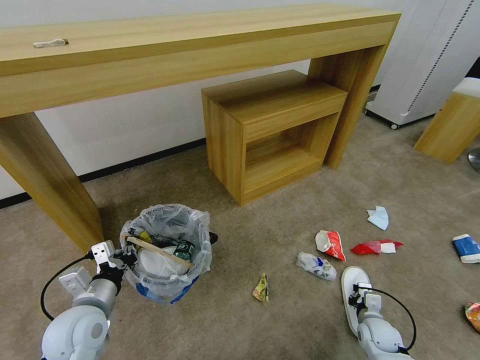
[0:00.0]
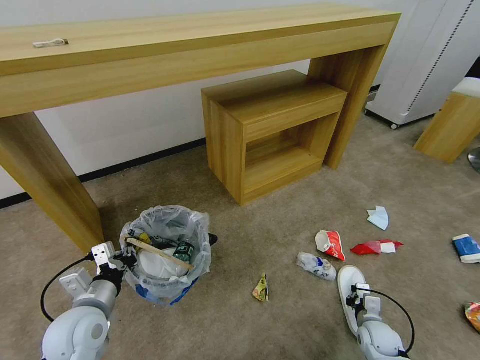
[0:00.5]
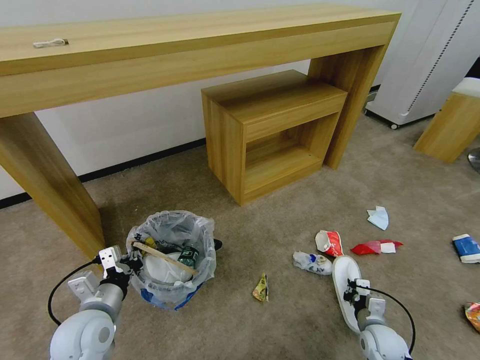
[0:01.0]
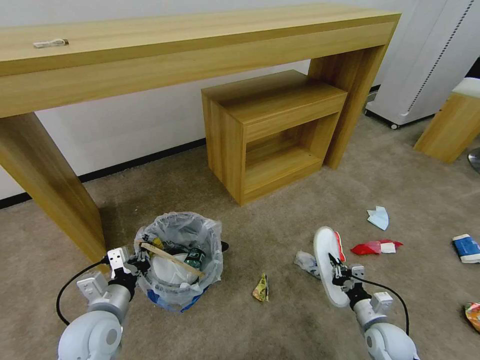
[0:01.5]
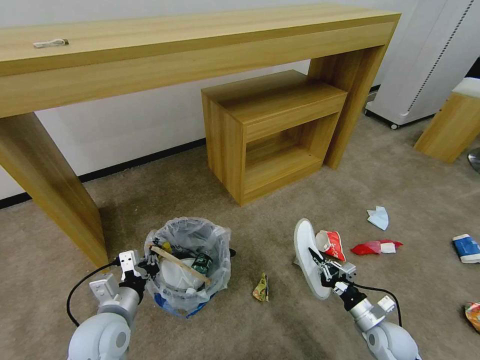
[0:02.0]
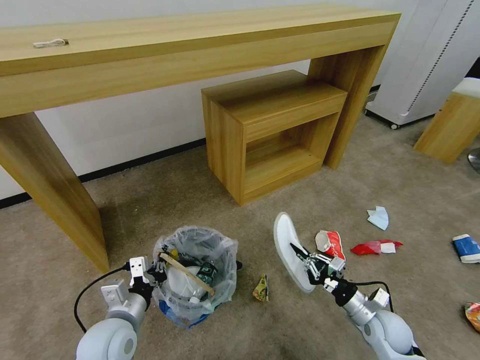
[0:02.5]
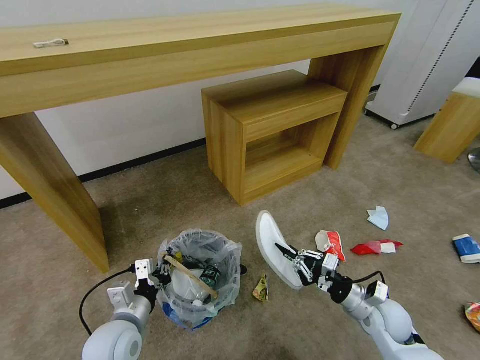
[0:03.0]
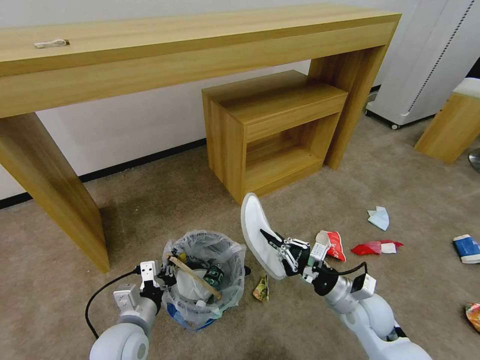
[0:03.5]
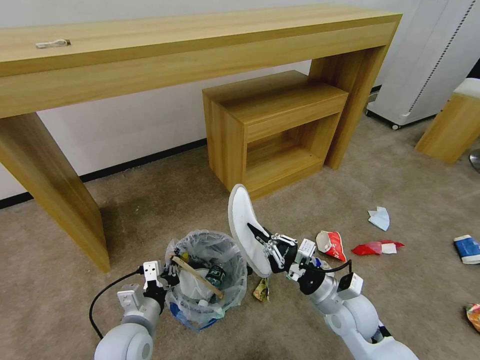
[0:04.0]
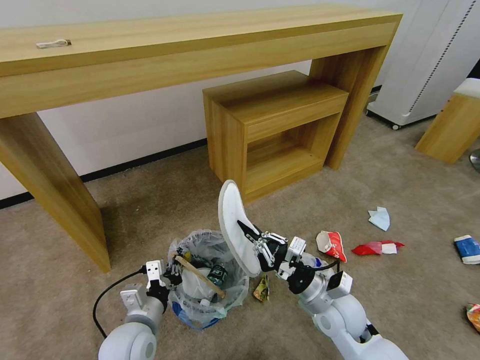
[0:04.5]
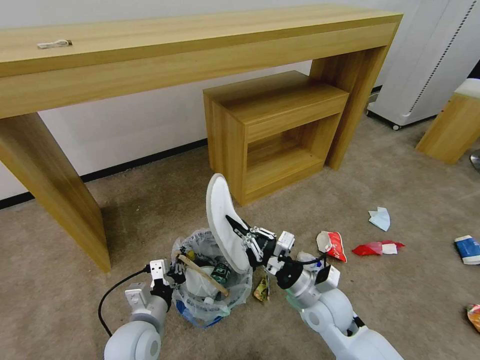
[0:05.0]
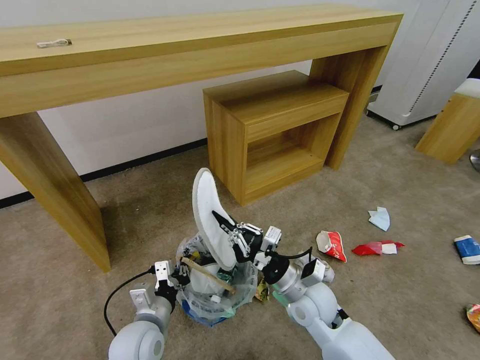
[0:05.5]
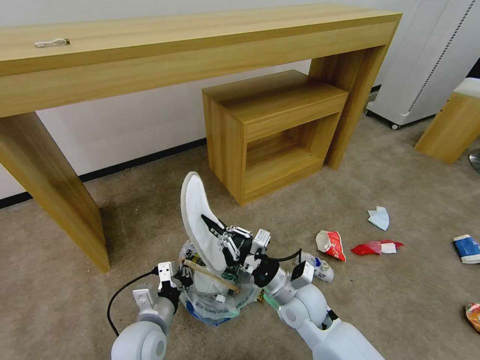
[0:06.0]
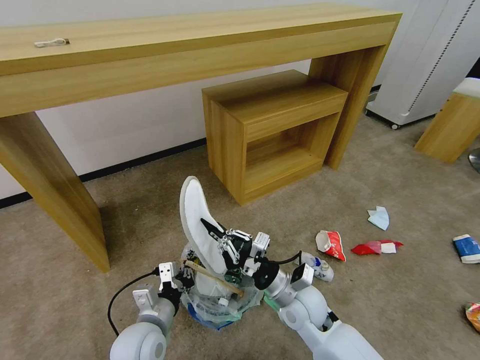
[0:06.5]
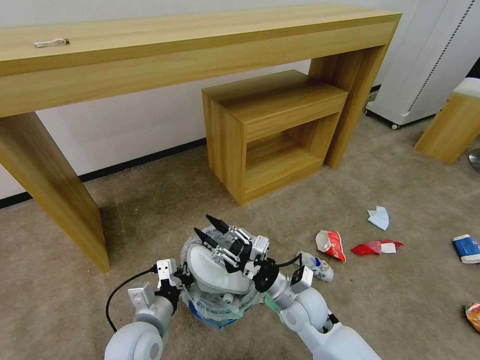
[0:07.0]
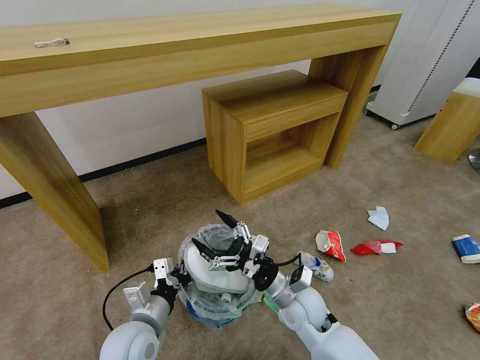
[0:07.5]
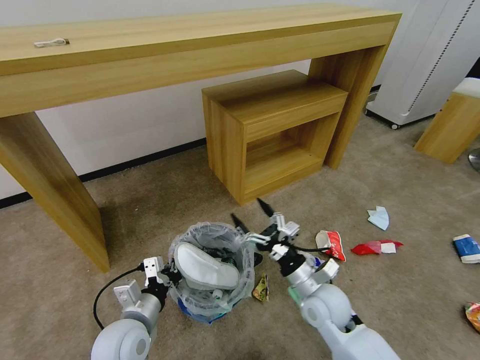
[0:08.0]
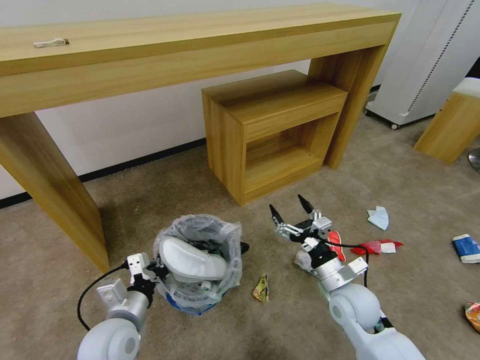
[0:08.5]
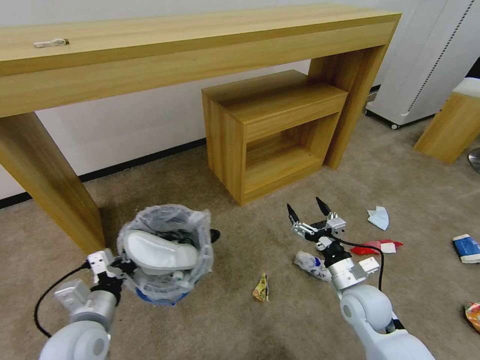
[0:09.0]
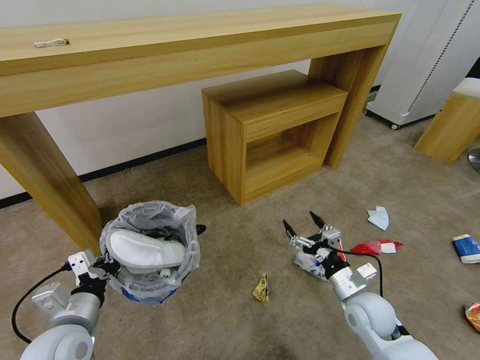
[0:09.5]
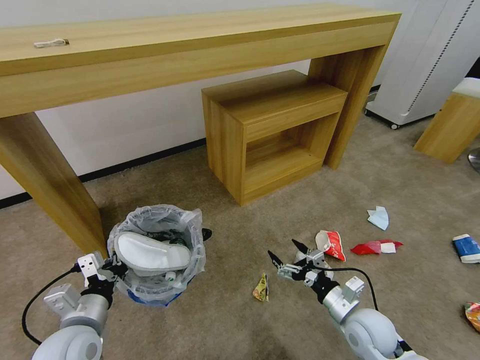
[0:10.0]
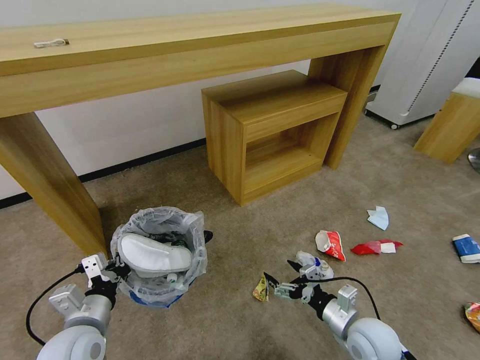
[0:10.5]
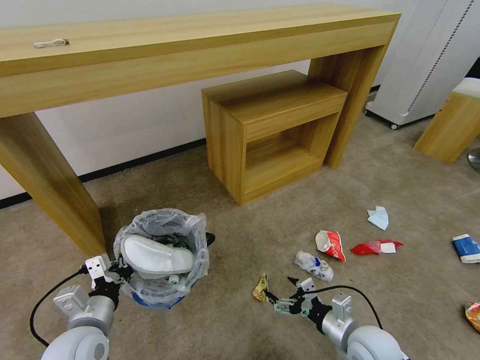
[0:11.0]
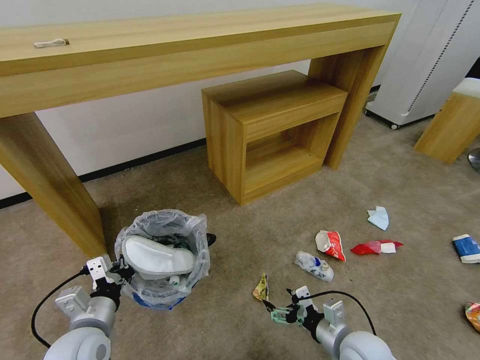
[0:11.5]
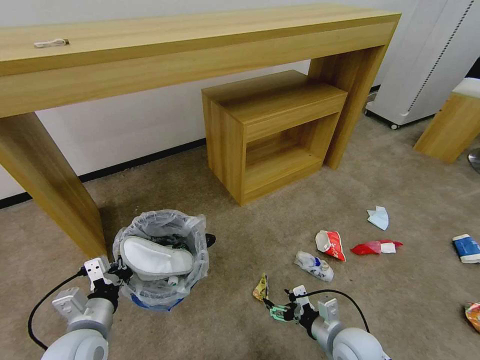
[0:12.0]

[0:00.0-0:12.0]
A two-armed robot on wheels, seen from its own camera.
Task of the whole recording: Pick up the trash bin and place the garbage on the floor into it.
0:00.0 to 0:02.0: The right gripper is displaced upward by some 5 cm.
0:02.0 to 0:04.0: The right gripper shifts about 20 cm to the left and upward. The left gripper changes place by some 5 cm.
0:04.0 to 0:06.0: The right gripper heads to the left, covering about 10 cm.
0:06.0 to 0:08.0: The right gripper is displaced to the right by about 5 cm, and opens up.
0:08.0 to 0:10.0: The right gripper travels to the right by roughly 10 cm, while the left gripper moves to the left, approximately 5 cm.
0:10.0 to 0:12.0: The right gripper shifts by approximately 5 cm.

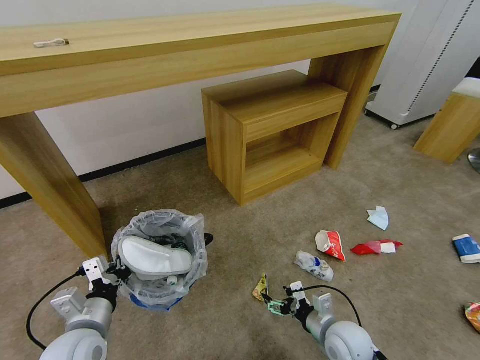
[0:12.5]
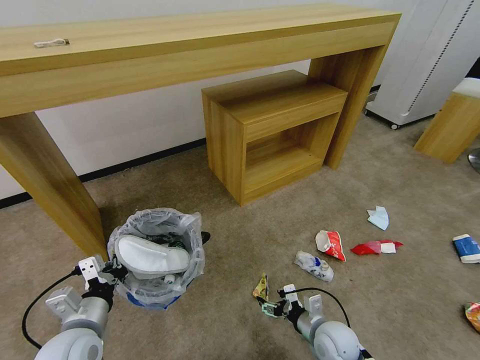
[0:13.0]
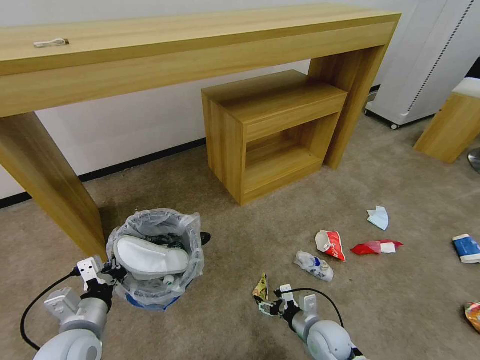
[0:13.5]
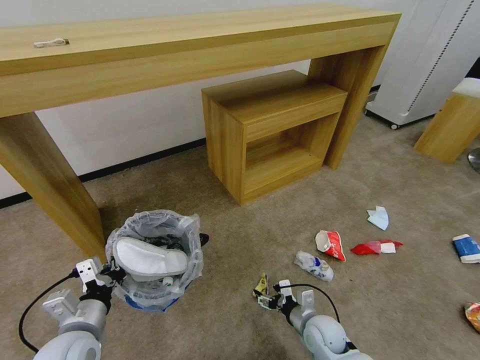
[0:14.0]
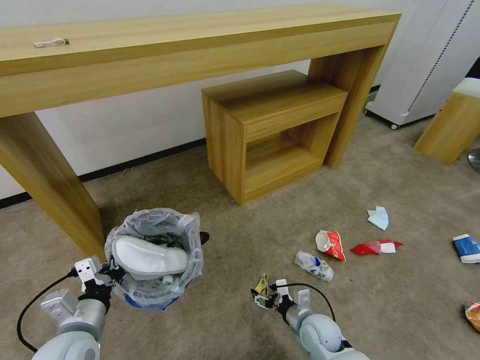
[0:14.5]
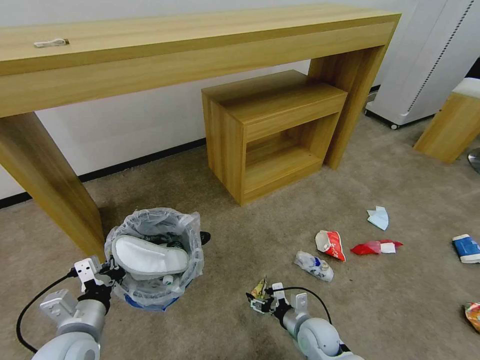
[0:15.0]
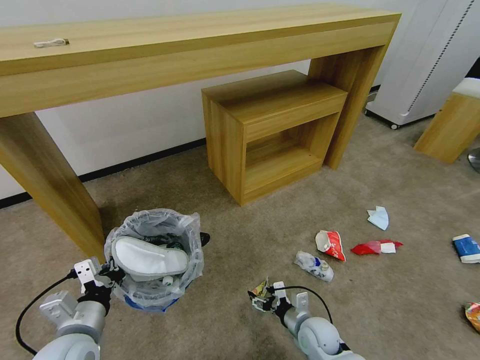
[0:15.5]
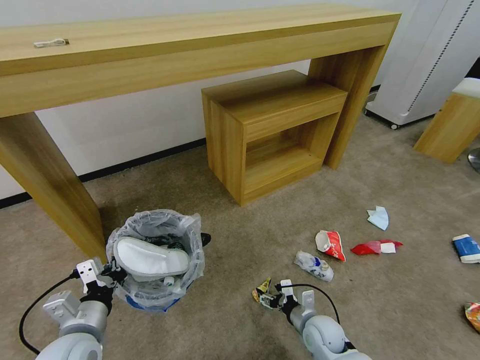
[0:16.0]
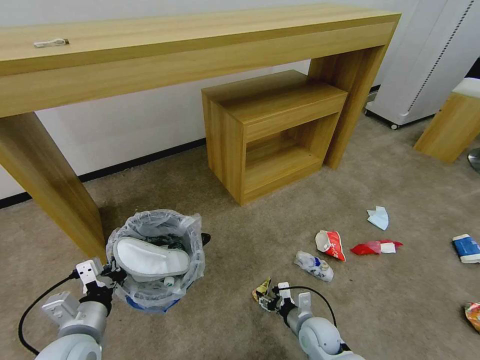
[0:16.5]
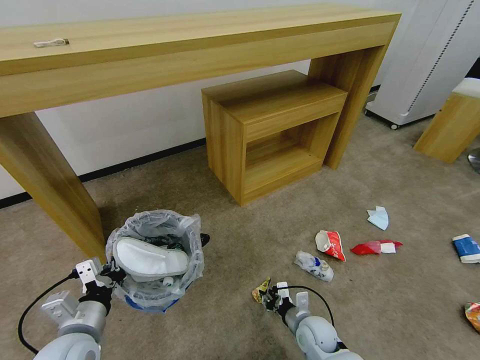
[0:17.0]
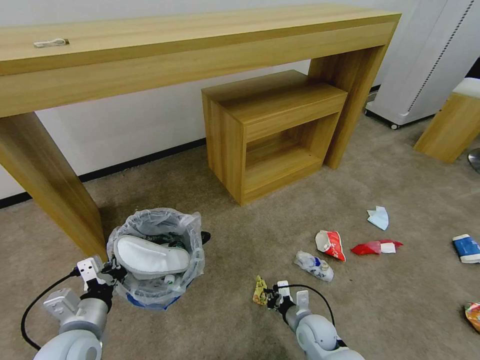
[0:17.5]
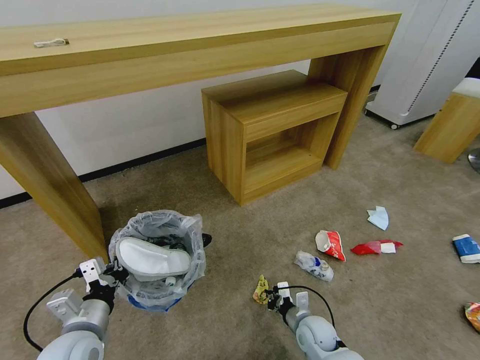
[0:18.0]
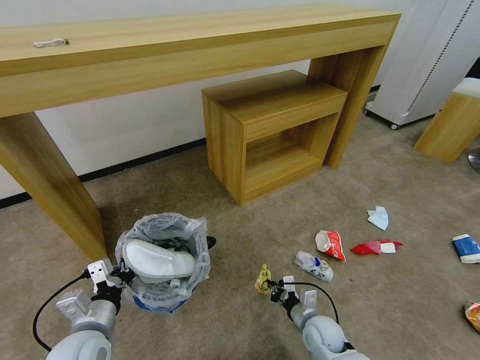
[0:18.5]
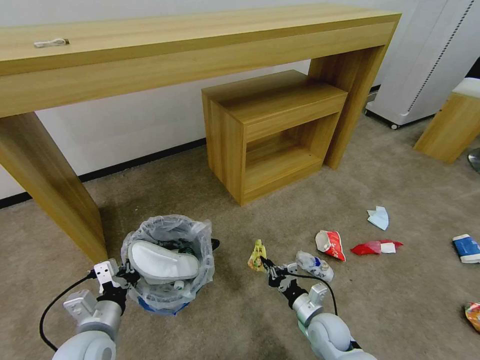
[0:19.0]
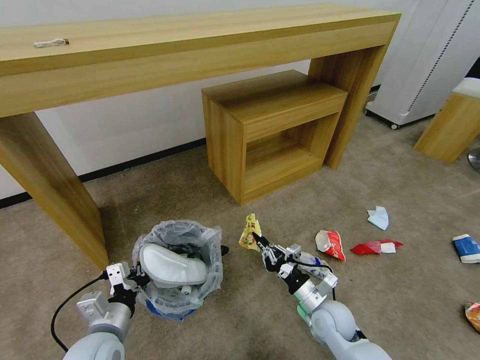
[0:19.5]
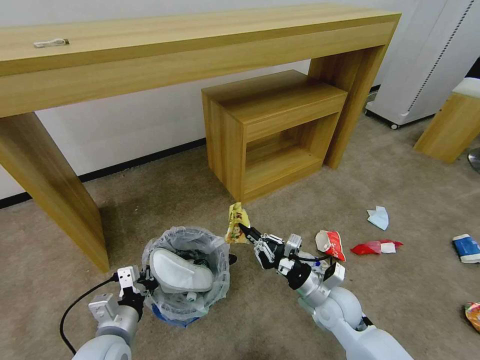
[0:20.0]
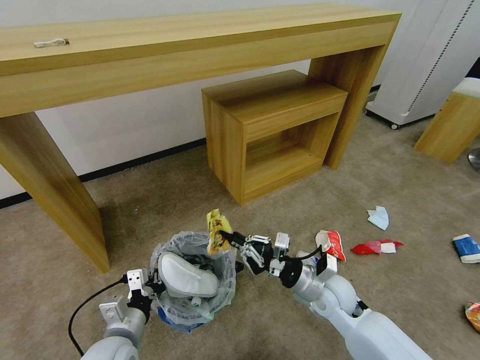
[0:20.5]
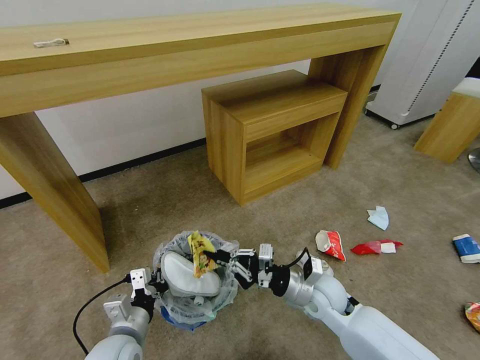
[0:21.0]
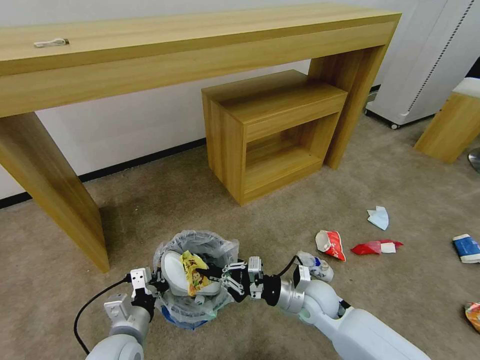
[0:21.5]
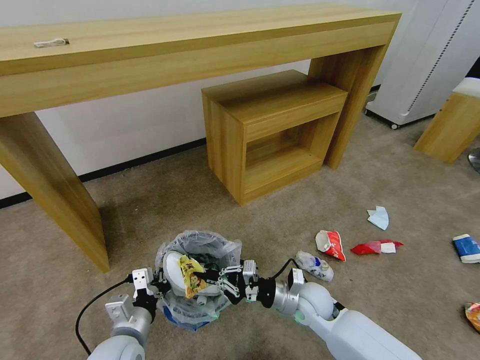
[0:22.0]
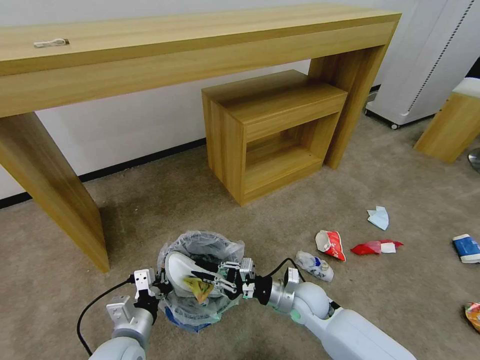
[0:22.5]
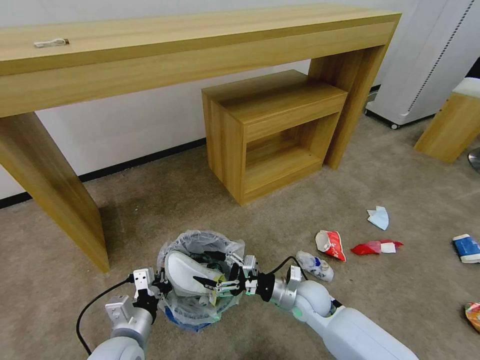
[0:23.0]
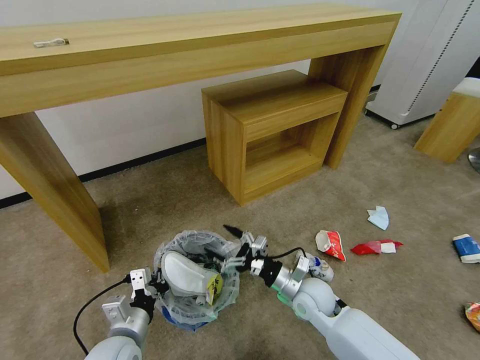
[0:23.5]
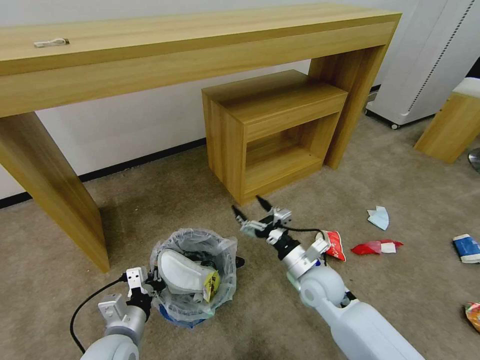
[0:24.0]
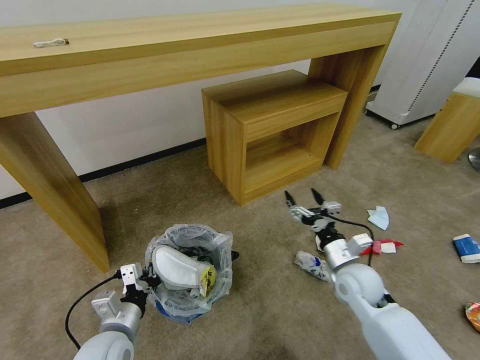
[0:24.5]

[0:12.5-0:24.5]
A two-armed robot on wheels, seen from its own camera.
Task of the whole recording: Pick up the trash bin and place the garbage on the floor into it.
0:12.5 to 0:14.5: The right gripper moves downward, about 5 cm.
0:14.5 to 0:16.5: The two grippers keep their place.
0:16.5 to 0:18.5: The right gripper closes its fingers.
0:18.5 to 0:20.5: The left gripper changes place by approximately 5 cm; the right gripper shifts roughly 15 cm upward.
0:20.5 to 0:22.5: The right gripper heads downward, covering roughly 5 cm.
0:22.5 to 0:24.5: The right gripper goes about 15 cm to the right and upward, and opens up.

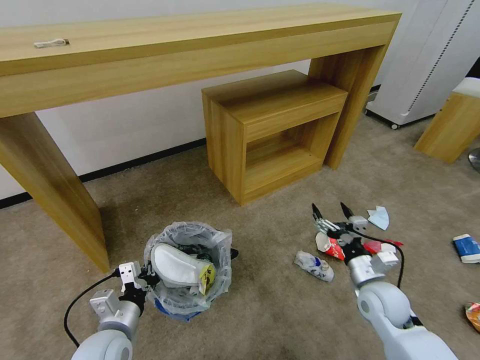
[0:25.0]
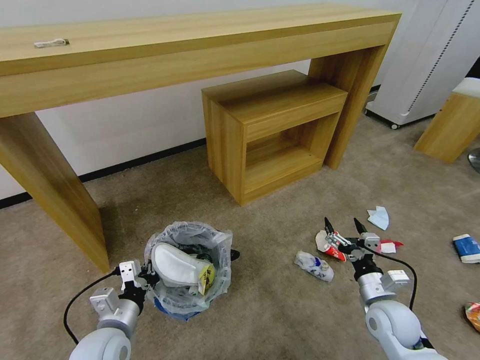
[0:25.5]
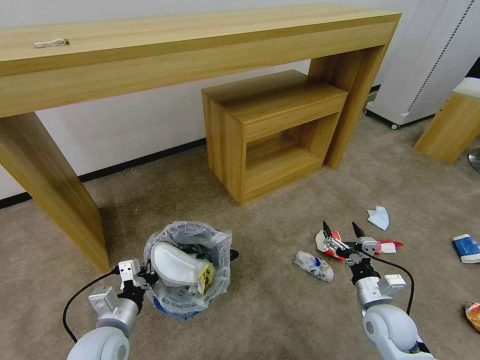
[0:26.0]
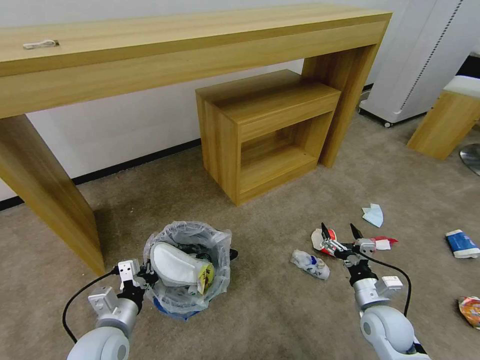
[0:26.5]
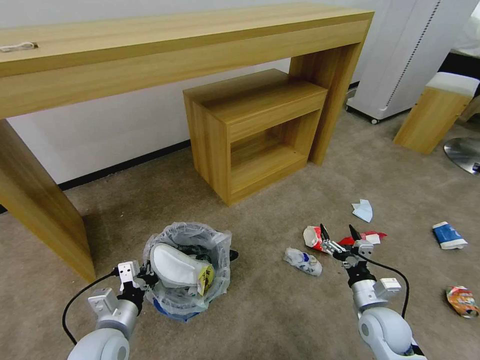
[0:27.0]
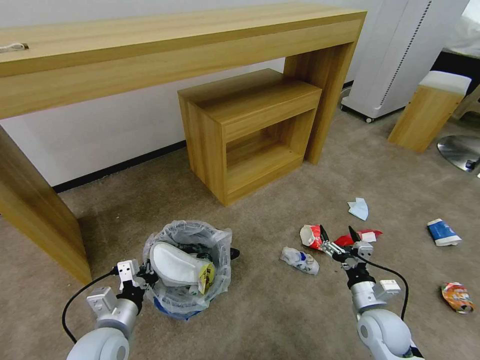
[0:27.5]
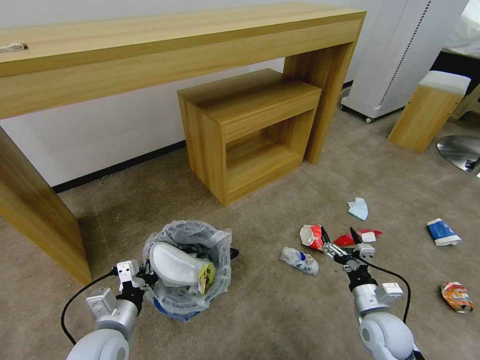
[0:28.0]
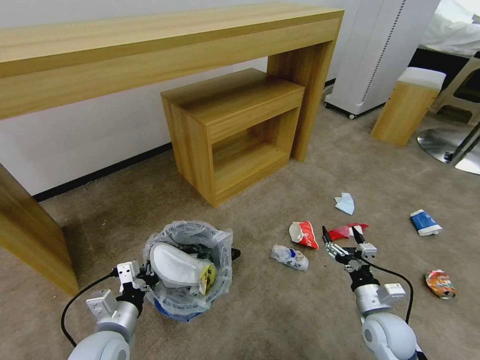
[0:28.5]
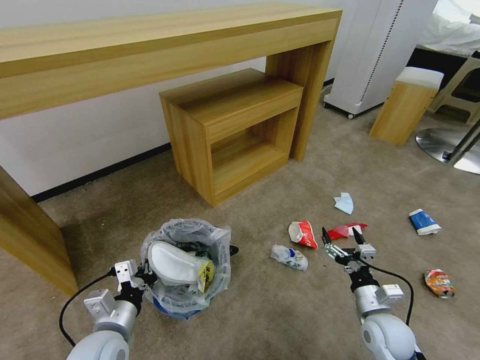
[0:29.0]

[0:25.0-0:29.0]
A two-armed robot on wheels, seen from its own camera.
Task of the whole recording: Pick up the trash bin and place the garbage on the floor into it.
0:25.0 to 0:27.0: The right gripper goes some 5 cm downward.
